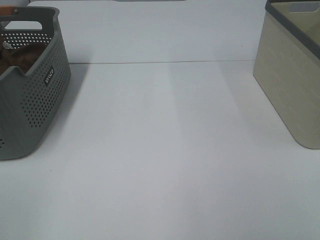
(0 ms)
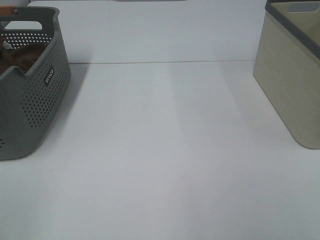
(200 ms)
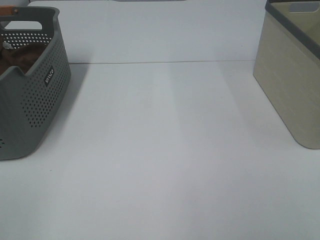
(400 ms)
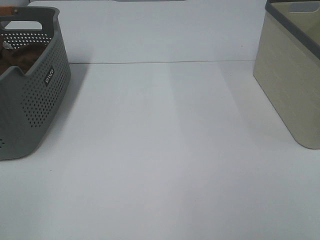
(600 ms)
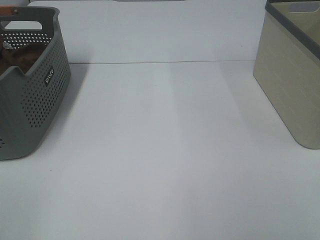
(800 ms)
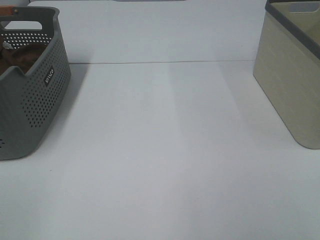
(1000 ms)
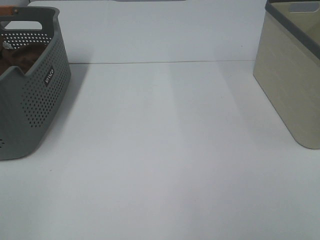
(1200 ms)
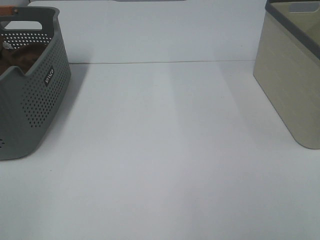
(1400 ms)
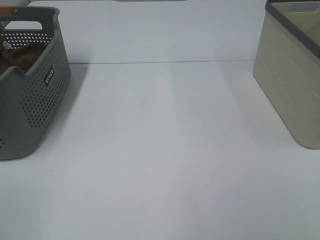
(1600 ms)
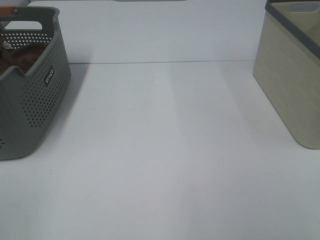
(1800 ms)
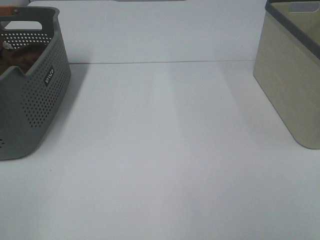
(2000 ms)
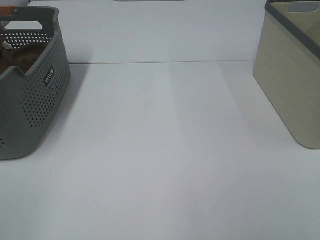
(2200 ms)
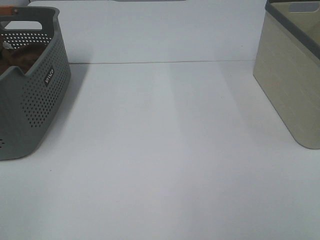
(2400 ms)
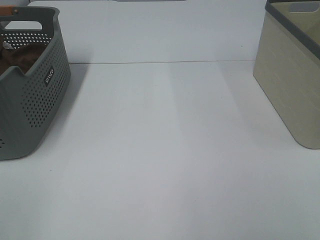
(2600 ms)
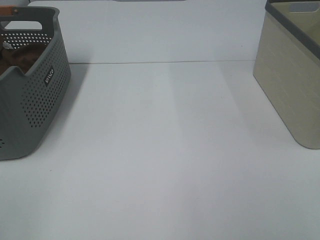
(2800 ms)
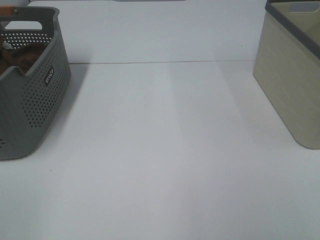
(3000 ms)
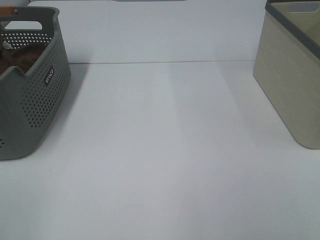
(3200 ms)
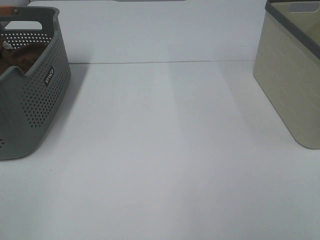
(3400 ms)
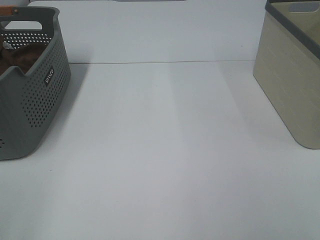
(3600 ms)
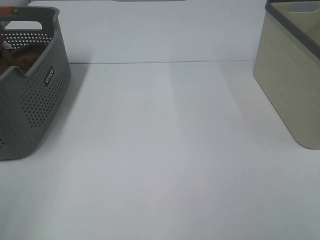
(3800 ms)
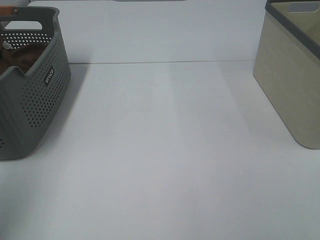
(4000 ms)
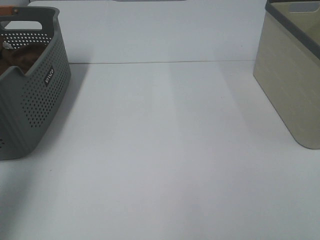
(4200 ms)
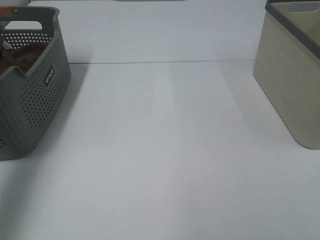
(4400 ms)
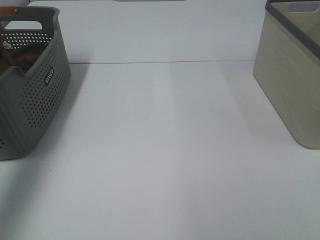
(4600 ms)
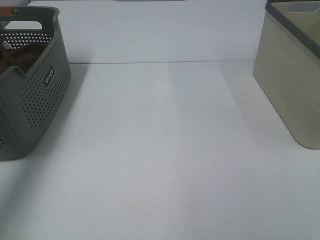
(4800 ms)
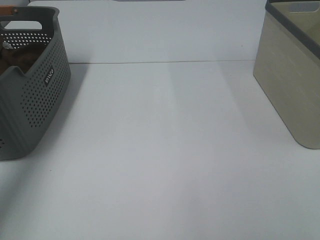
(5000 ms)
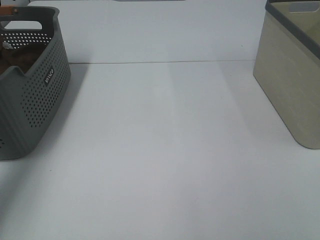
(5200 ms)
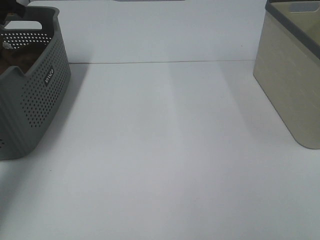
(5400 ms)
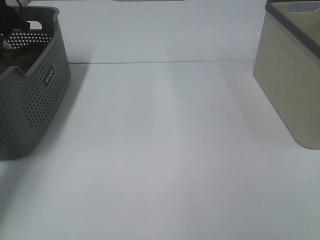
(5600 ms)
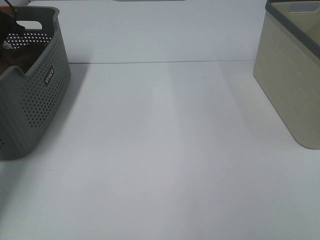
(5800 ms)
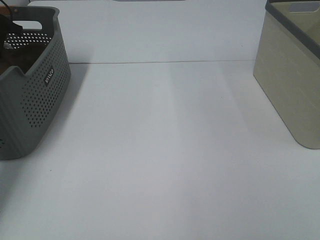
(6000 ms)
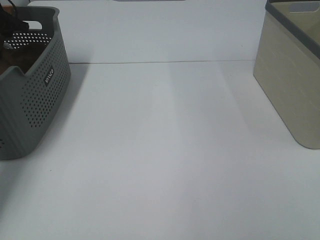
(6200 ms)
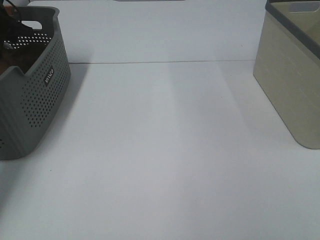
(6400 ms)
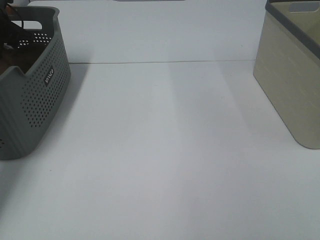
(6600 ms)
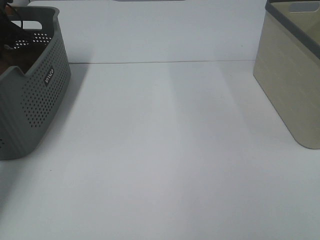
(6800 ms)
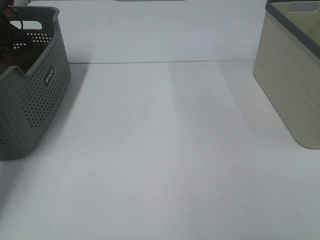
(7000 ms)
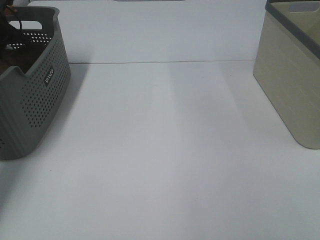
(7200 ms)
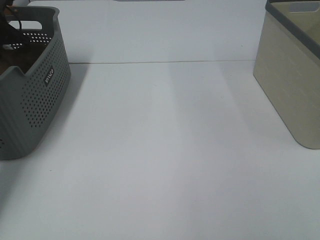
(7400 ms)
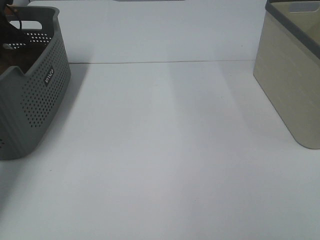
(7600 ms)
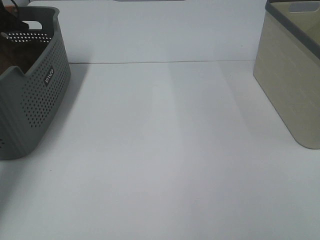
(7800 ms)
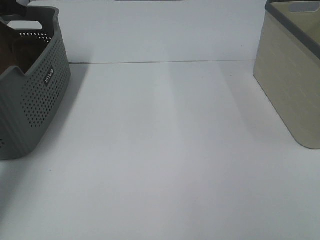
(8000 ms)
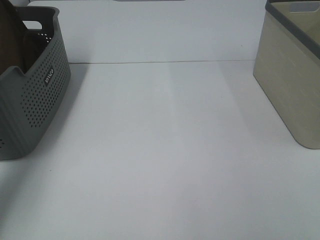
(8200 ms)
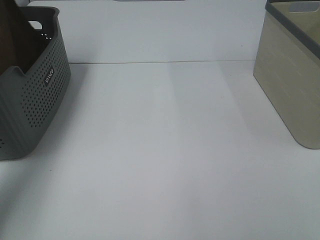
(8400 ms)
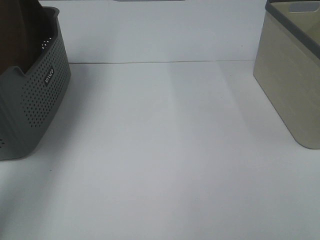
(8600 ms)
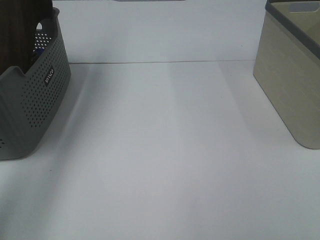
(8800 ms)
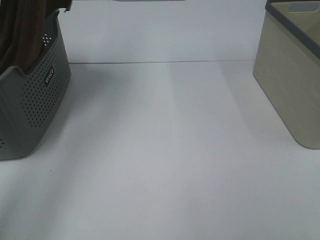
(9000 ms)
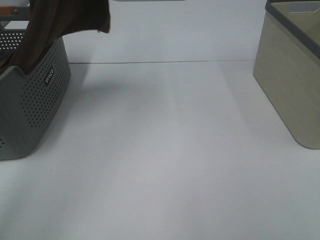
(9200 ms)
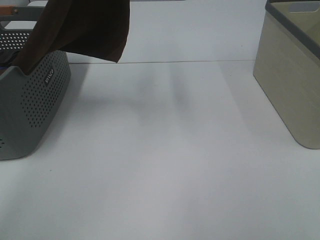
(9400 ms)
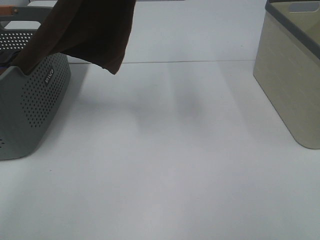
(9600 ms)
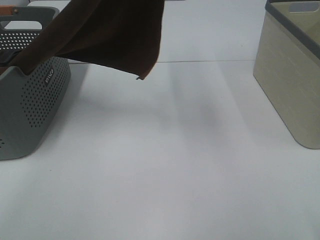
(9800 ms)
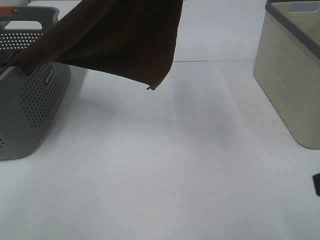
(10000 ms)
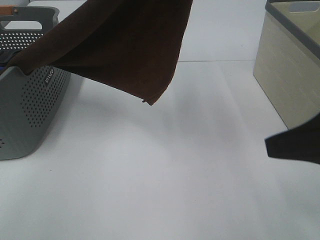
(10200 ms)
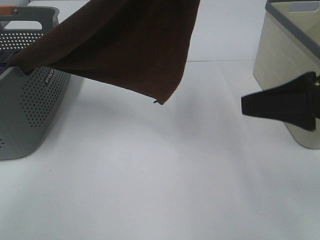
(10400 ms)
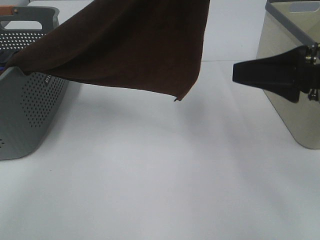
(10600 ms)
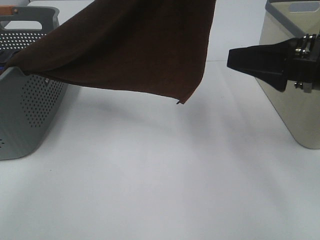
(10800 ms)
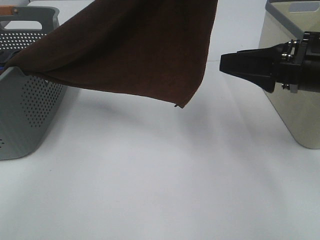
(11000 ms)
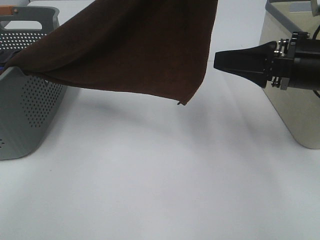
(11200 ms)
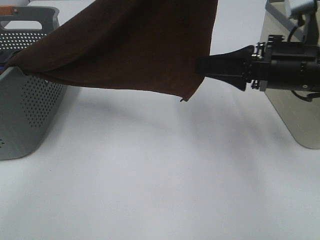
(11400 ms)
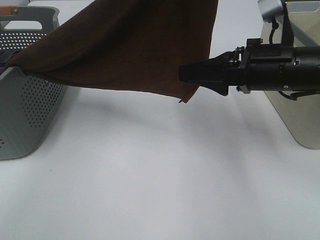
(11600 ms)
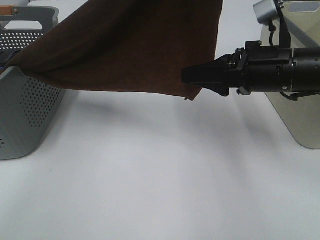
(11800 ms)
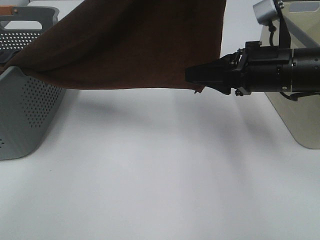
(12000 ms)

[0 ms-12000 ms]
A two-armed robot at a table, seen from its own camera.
Task of the whole recording: Remove the towel and place it.
0 ms to 3000 ms: Neither gripper changes place.
3000 ms to 4400 ms: The left gripper moves forward, some 25 cm.
4400 ms to 6000 ms: The left gripper goes roughly 35 cm forward and downward.
7600 ms to 9000 ms: The left gripper moves upward, to the right and backward, approximately 35 cm.
9000 ms to 10400 ms: The right gripper travels forward by about 20 cm. The left gripper goes roughly 20 cm to the right and backward.
10400 ms to 12000 ms: The right gripper travels forward, downward and to the left by approximately 15 cm, and closes.

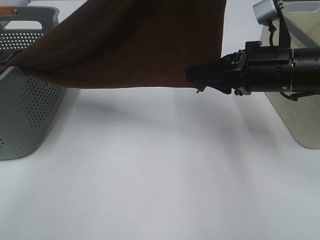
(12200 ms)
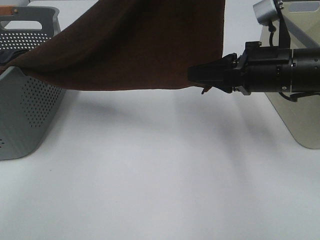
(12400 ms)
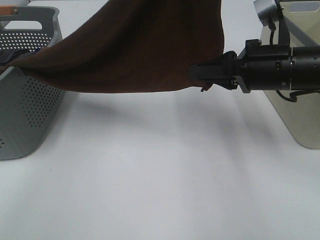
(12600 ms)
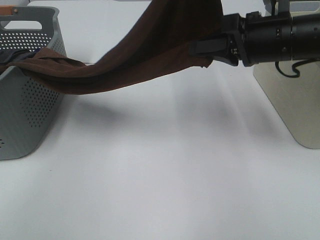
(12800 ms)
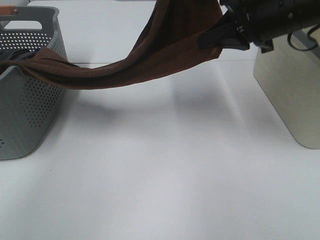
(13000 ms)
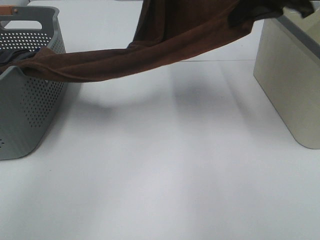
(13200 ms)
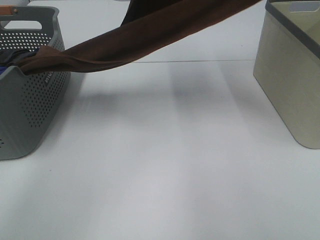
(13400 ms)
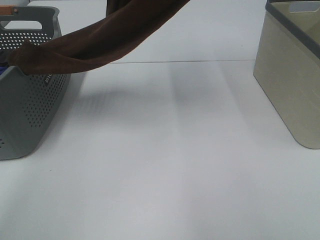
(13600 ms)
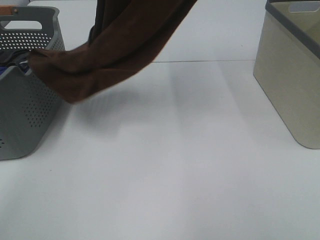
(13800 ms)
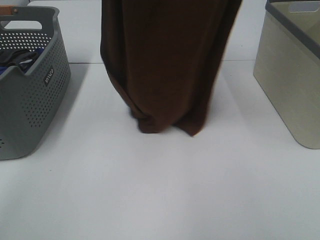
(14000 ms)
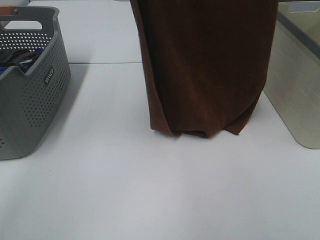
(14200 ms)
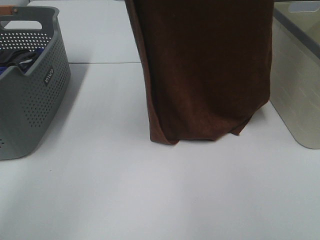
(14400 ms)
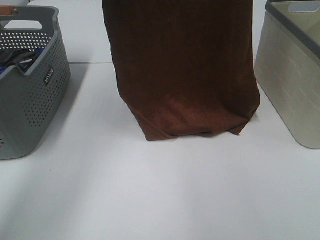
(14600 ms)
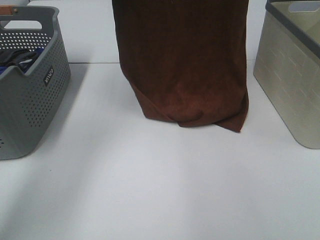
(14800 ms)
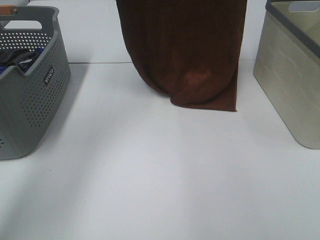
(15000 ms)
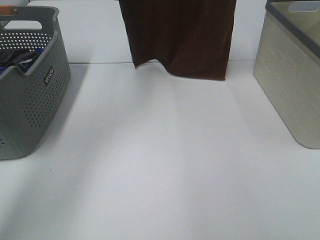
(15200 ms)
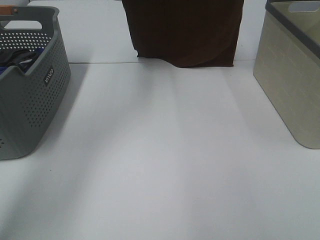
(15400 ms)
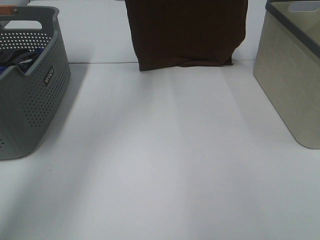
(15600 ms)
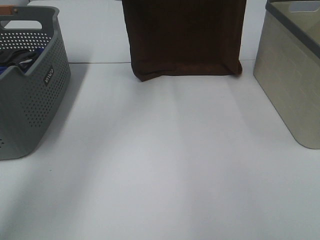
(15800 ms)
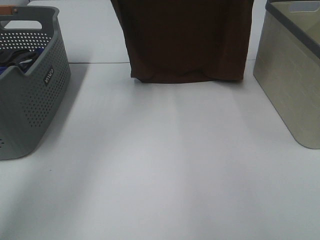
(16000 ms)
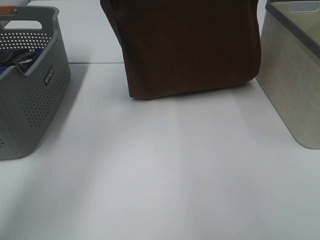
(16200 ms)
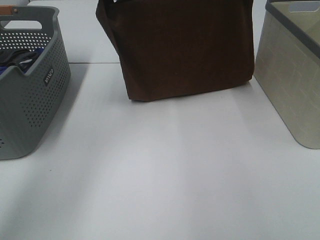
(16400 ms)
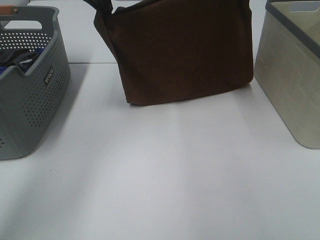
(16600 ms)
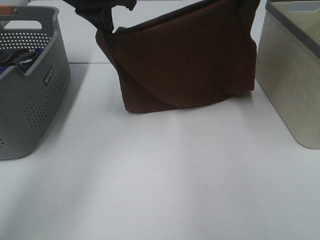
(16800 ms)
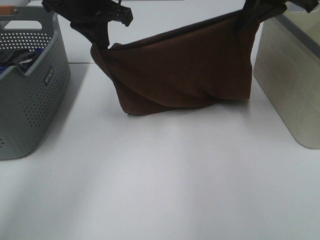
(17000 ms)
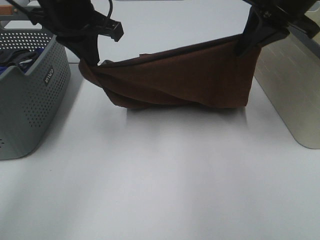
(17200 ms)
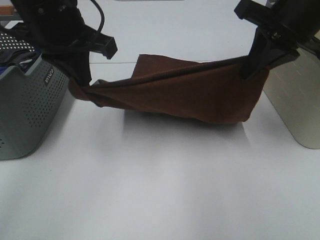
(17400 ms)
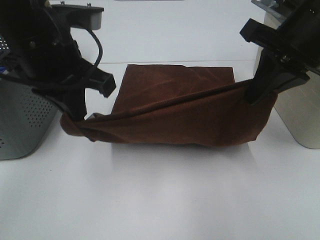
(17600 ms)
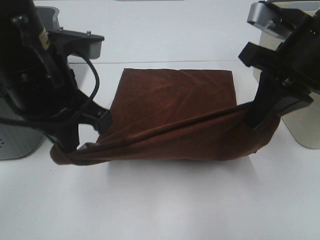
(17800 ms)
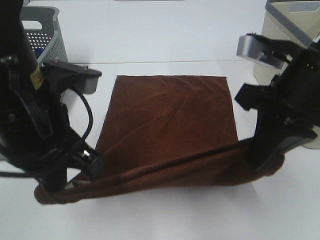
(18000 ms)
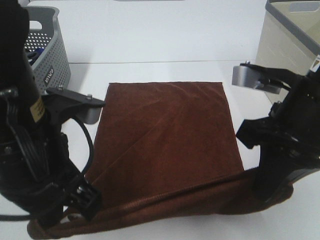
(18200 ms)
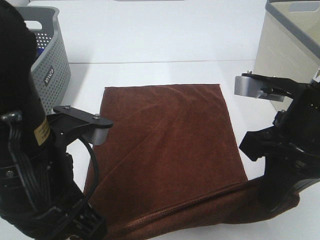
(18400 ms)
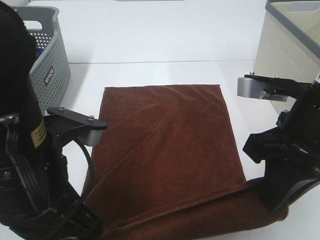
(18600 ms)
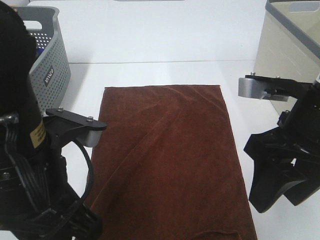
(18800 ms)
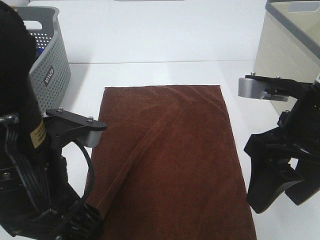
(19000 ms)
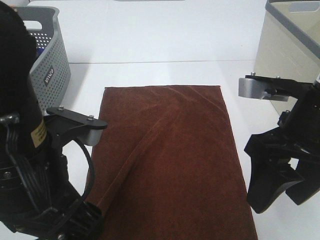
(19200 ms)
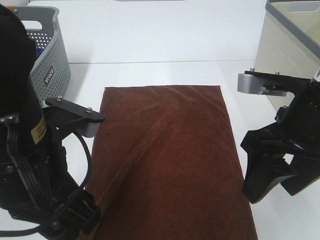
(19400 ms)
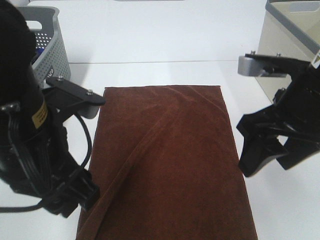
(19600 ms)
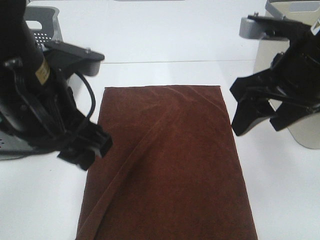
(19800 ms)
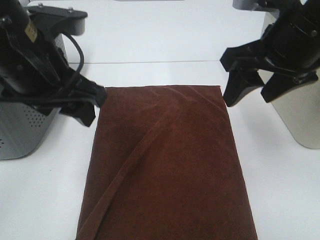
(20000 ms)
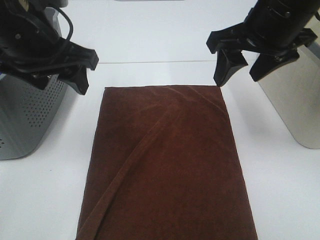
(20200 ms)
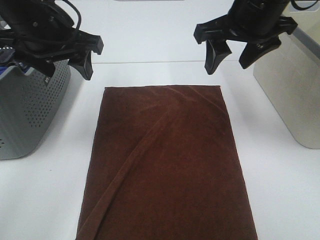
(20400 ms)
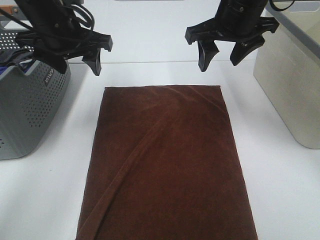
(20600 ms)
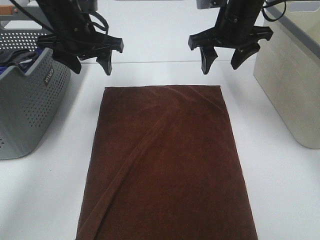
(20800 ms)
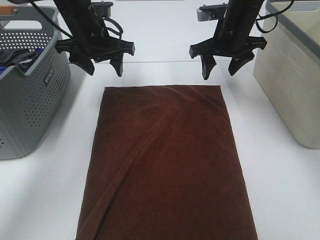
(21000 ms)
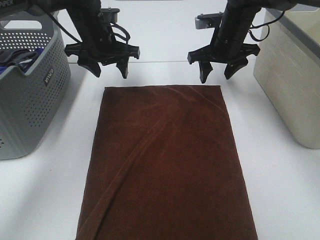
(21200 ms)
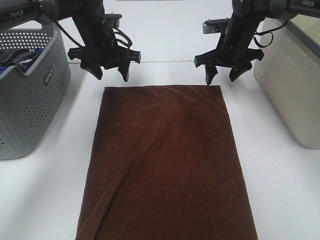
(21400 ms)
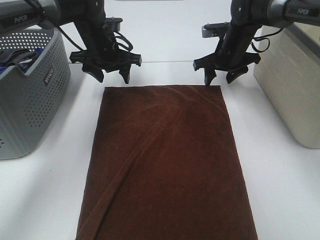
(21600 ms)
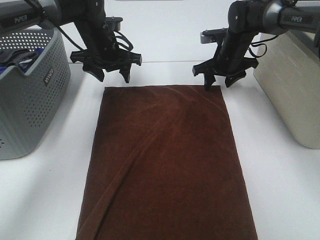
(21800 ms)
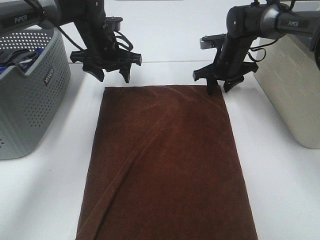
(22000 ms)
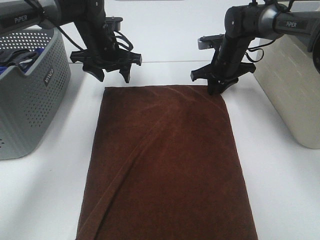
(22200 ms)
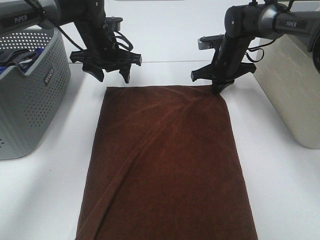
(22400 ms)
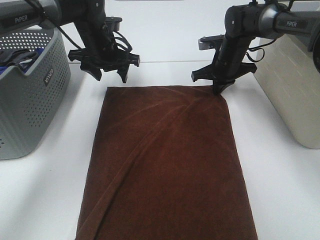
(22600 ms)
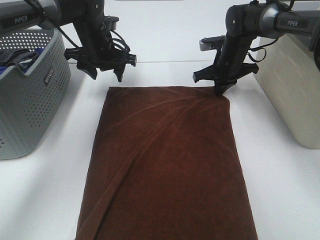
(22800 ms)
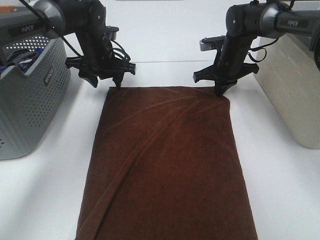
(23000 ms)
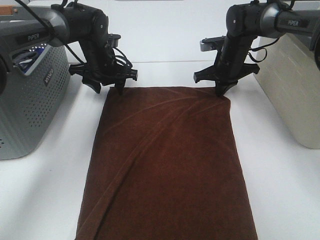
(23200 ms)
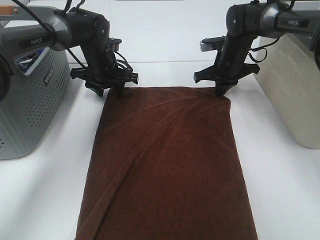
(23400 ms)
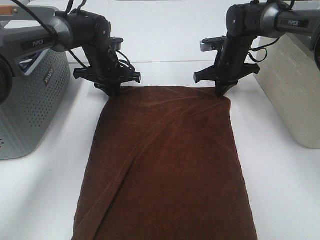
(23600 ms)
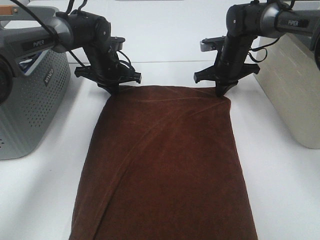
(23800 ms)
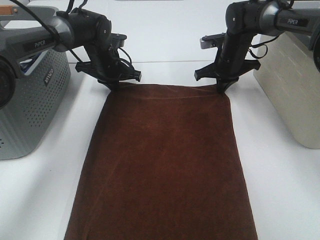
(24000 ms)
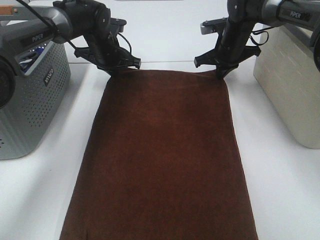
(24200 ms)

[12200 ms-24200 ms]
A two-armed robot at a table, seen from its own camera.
Task of the whole recording: Remove the towel and place it.
Step, 12400 ms to 15200 ms: Left hand: spread the brown towel flat on the table.
Step, 12400 ms to 15200 ms: Right hand: spread the brown towel flat on the table.
Step, 15400 ms to 21800 ms: Left hand:adjust the brown towel.
Step, 15400 ms to 21800 ms: Right hand:adjust the brown towel.
12200 ms to 13800 ms: The right gripper shifts about 35 cm upward, and closes up; the left gripper heads to the left and upward, covering about 10 cm.
13800 ms to 15200 ms: The right gripper goes some 10 cm forward; the left gripper goes about 15 cm forward and downward.
15200 ms to 16600 ms: Both grippers move downward, approximately 10 cm.
16600 ms to 18200 ms: The left gripper goes about 25 cm backward, while the right gripper travels backward and downward by approximately 25 cm.
18200 ms to 19800 ms: The right gripper moves approximately 5 cm, and opens up; the left gripper heads forward, covering roughly 5 cm, and opens its fingers.
19800 ms to 21200 ms: The left gripper goes about 25 cm forward; the right gripper travels forward and downward by some 25 cm.
21200 ms to 22600 ms: The right gripper moves downward, roughly 5 cm, and closes up.
22600 ms to 24200 ms: The left gripper closes up.
